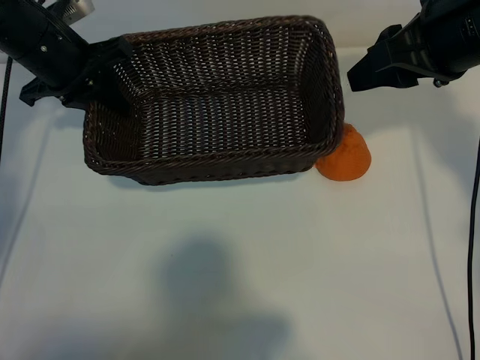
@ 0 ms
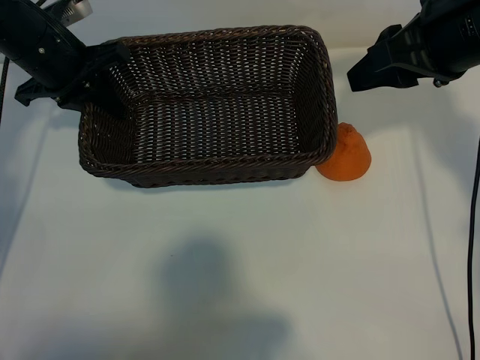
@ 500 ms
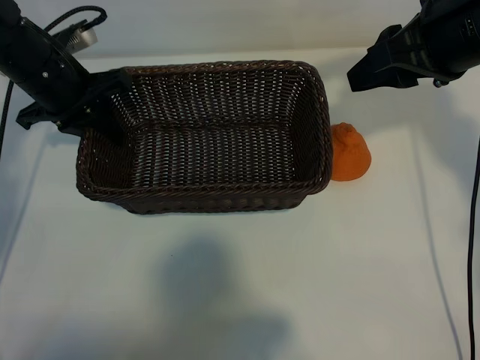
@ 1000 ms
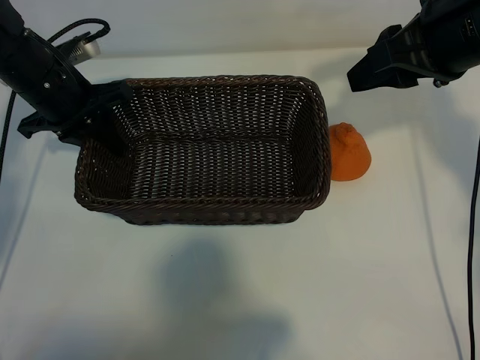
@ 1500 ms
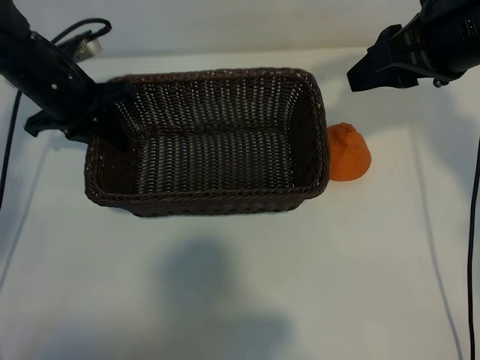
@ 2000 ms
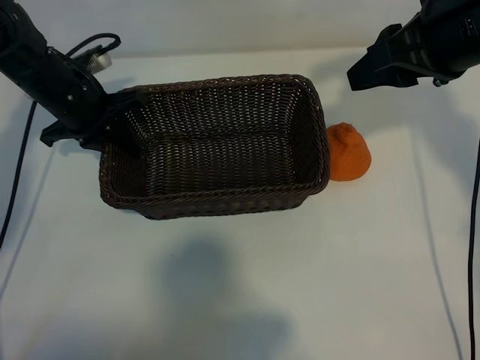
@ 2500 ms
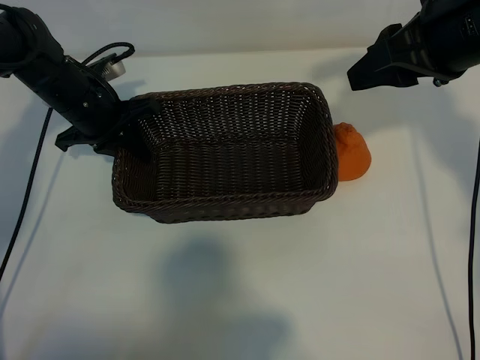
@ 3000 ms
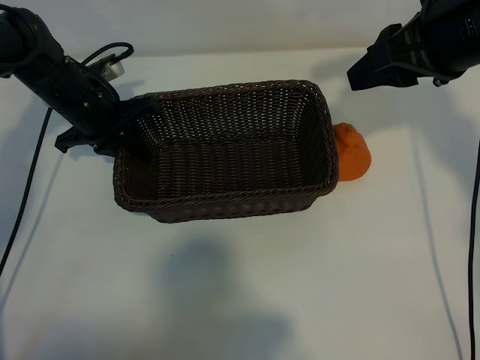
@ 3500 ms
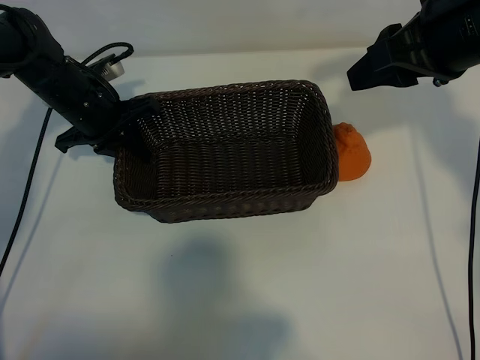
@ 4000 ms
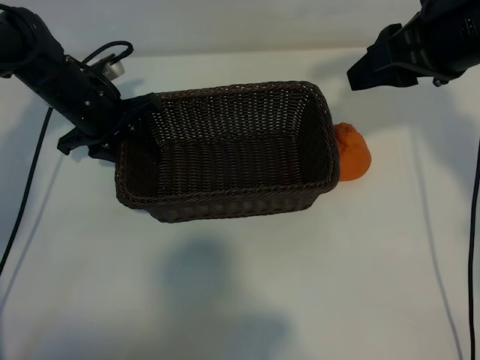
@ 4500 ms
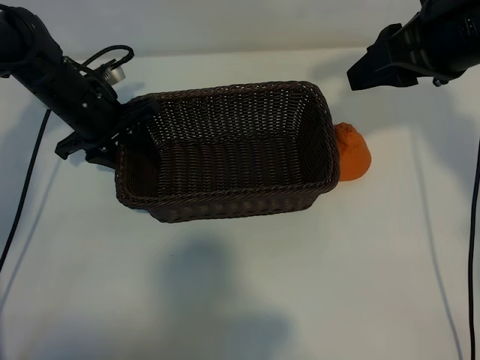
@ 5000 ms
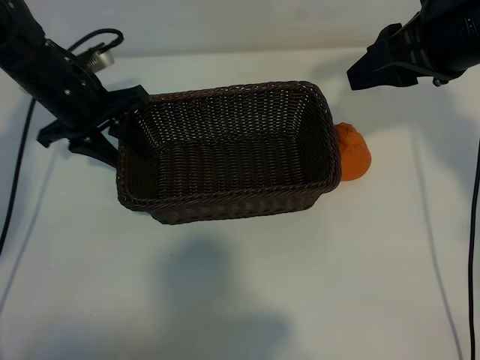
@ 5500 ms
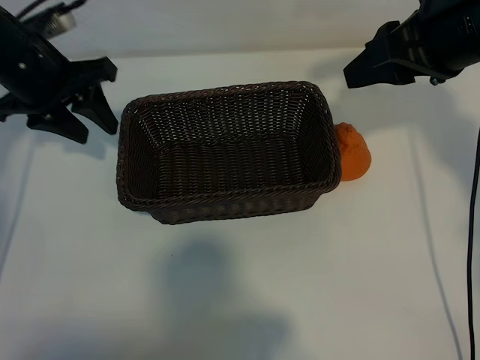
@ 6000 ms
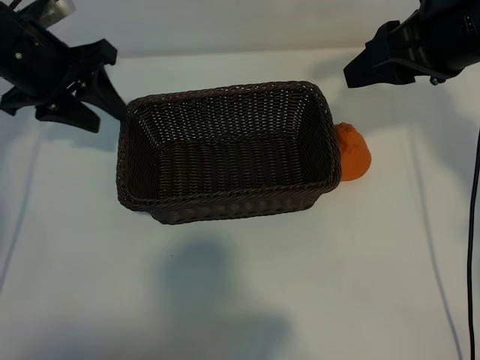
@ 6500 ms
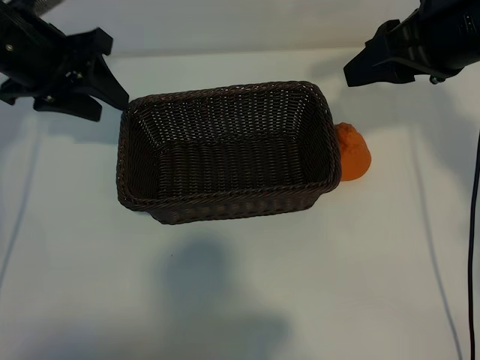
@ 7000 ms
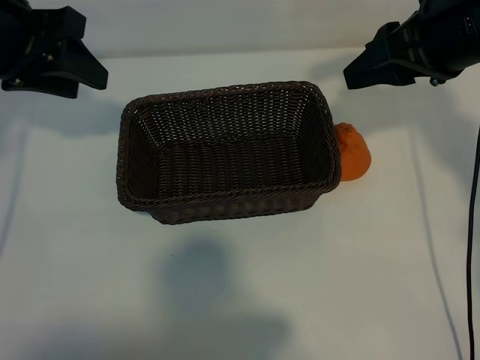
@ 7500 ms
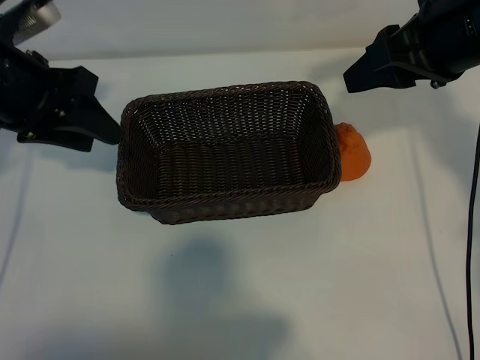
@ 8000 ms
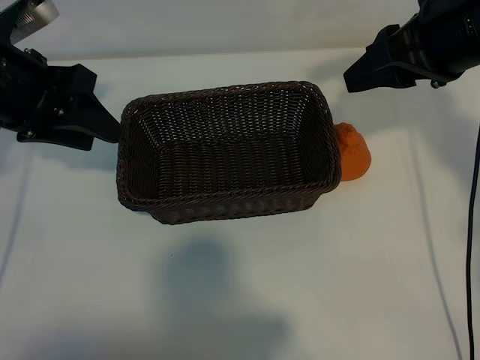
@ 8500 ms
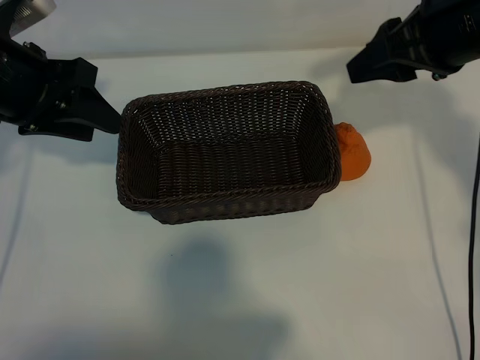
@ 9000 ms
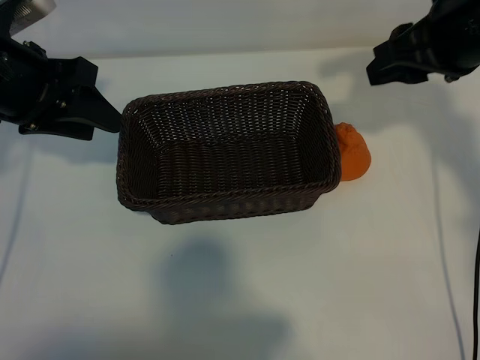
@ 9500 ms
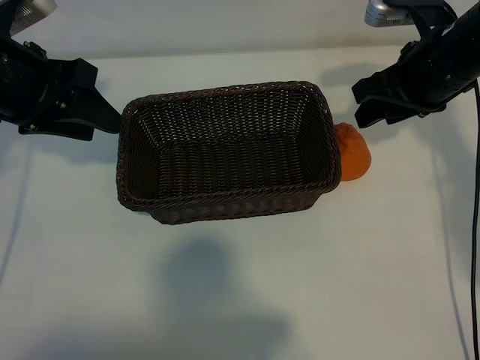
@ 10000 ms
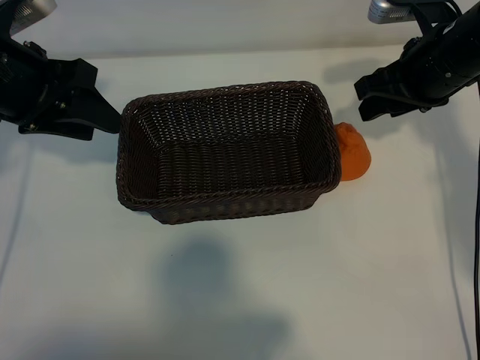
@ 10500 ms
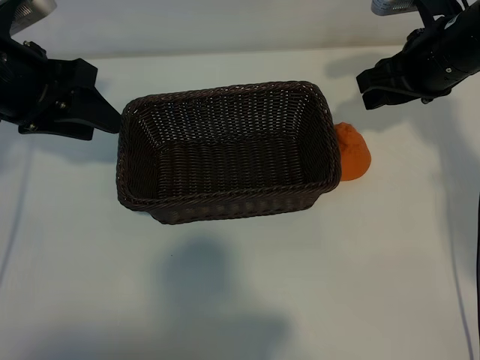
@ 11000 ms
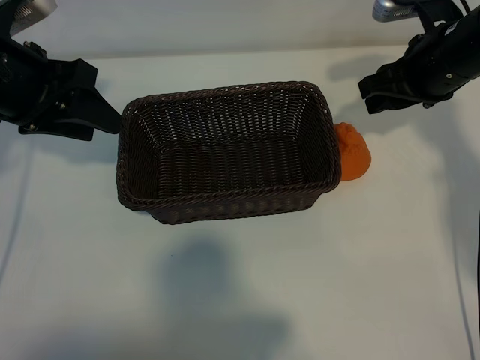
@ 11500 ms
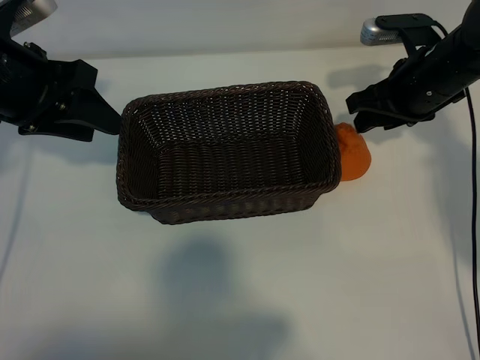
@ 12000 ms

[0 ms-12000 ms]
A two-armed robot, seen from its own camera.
Task of the whole recording: pick up the orange and put it into the basket.
Step, 0 ms to 4000 ms: Place the basket in the center of view with left gripper.

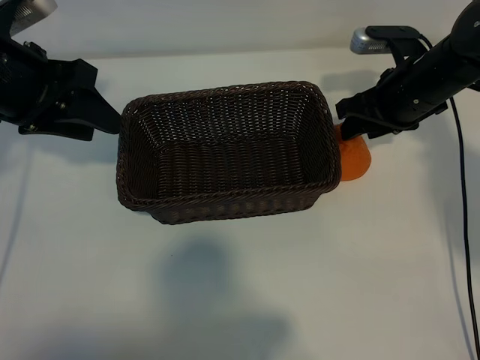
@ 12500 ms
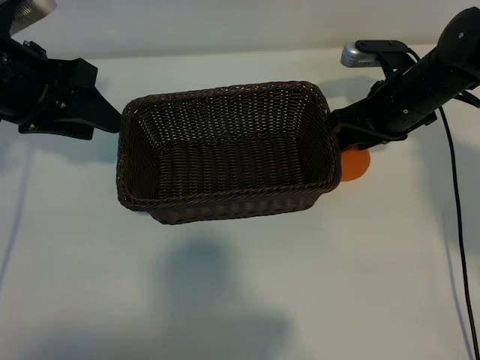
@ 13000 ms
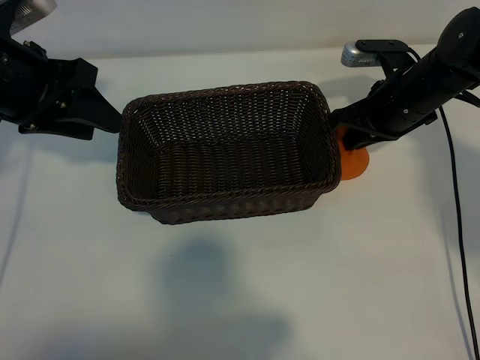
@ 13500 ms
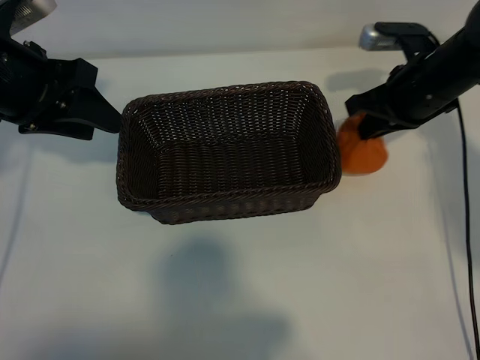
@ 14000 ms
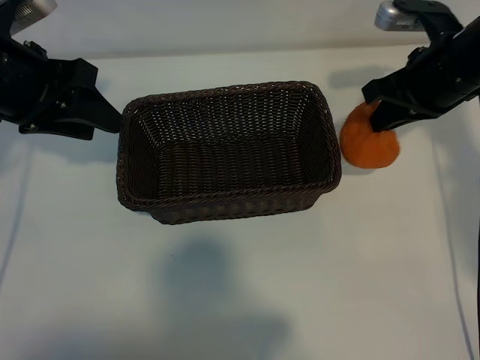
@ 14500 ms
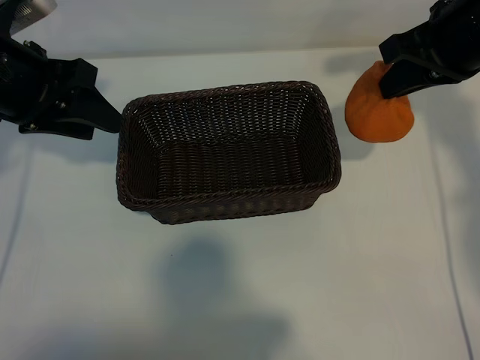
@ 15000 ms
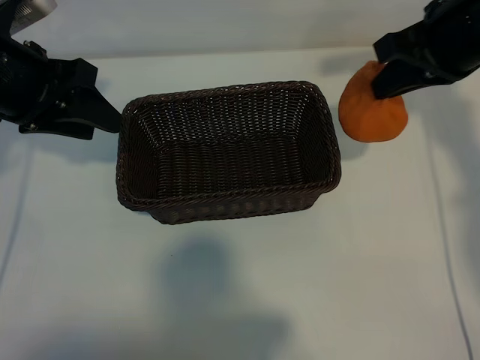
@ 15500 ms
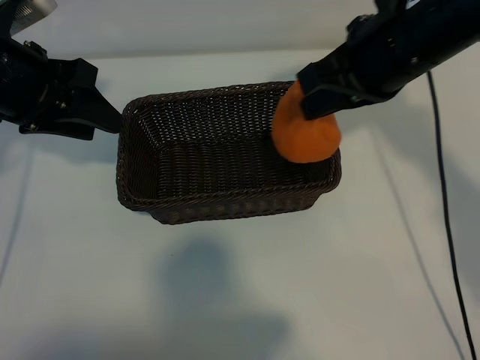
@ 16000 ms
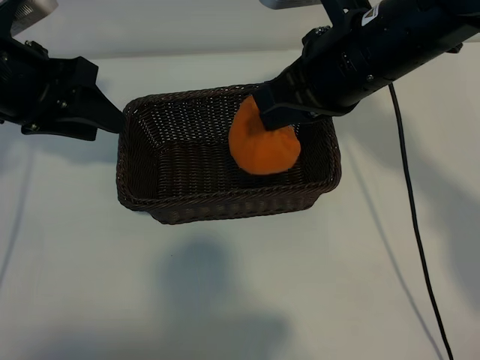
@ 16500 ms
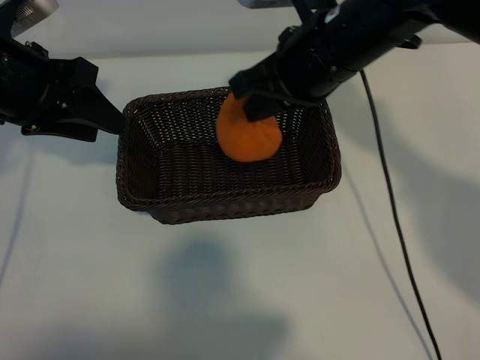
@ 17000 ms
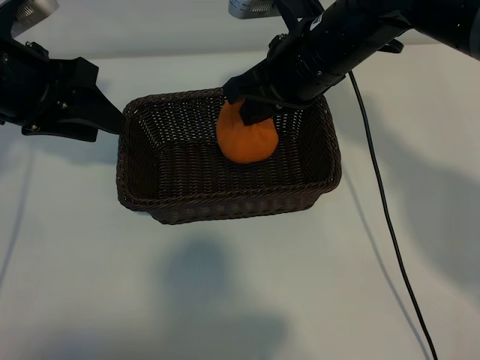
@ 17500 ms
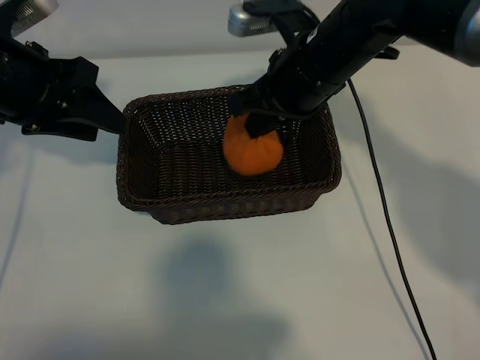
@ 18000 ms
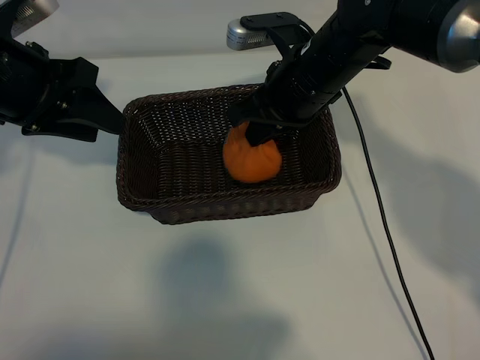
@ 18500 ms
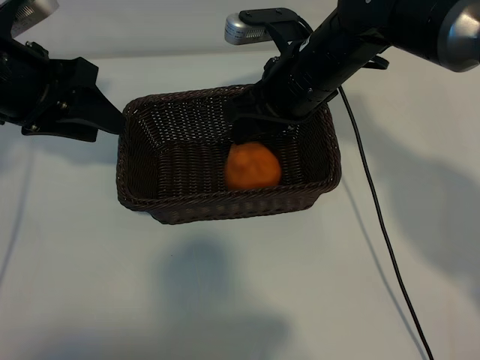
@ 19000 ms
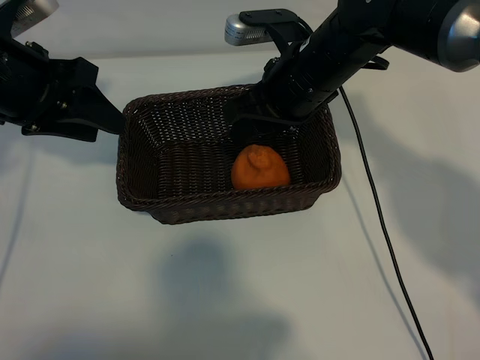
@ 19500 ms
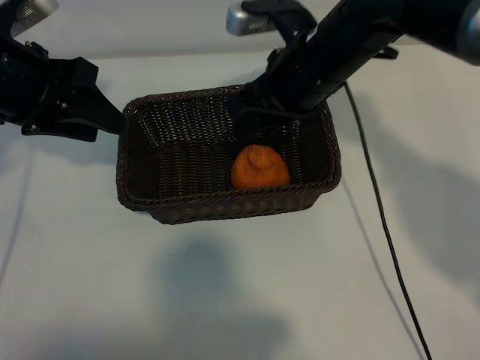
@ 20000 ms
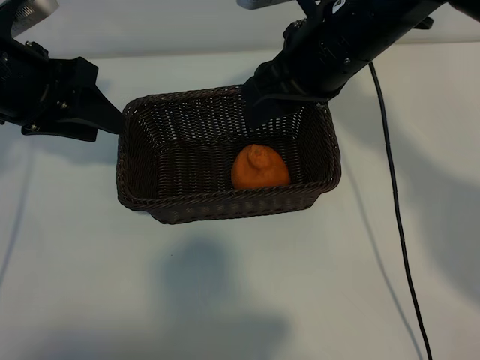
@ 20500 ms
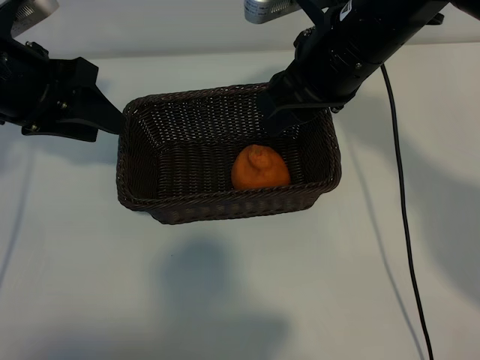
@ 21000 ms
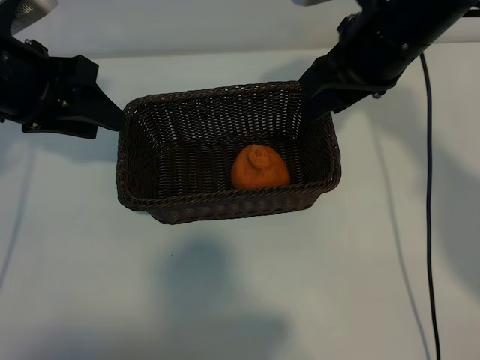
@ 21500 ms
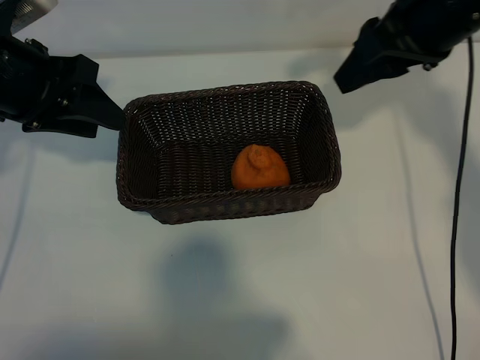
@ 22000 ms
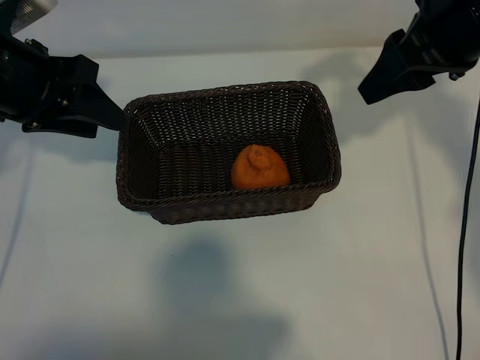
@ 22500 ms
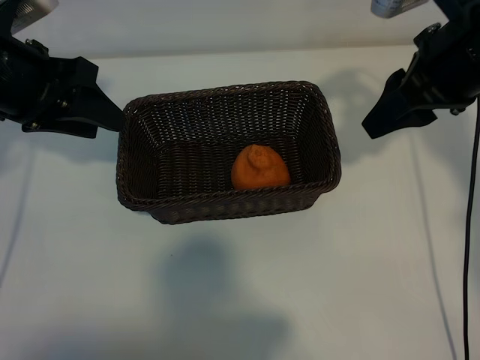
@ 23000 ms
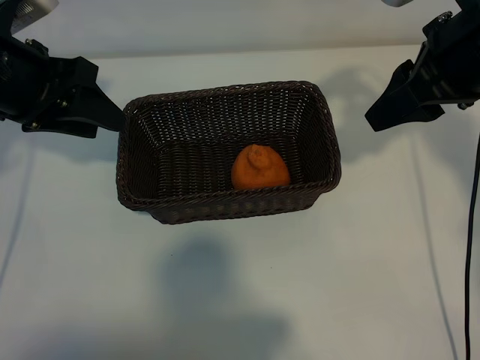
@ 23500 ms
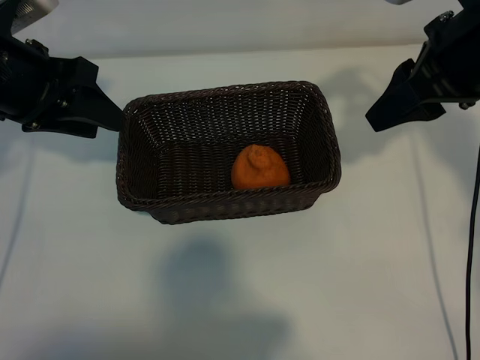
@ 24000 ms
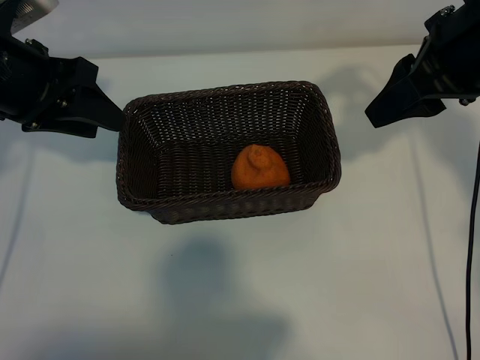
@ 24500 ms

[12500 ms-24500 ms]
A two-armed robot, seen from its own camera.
Task of the whole recording: pick up the orange and put it into the basket.
Step, 13500 ms to 19000 ms: Place the orange in the basket with right gripper.

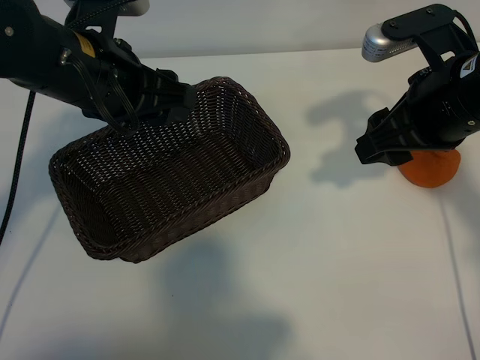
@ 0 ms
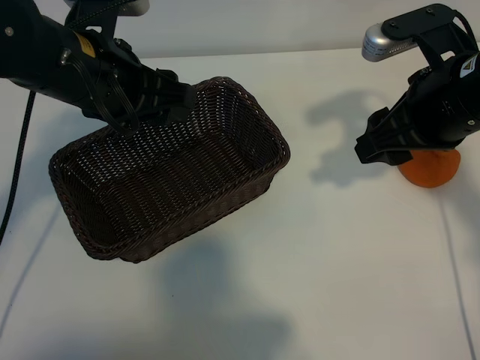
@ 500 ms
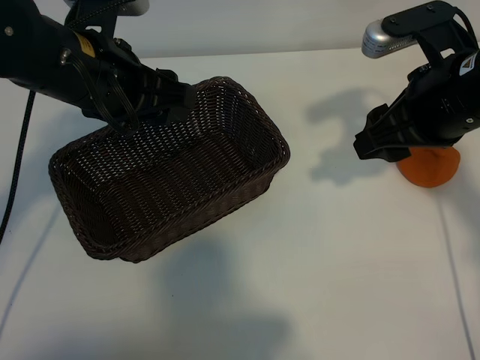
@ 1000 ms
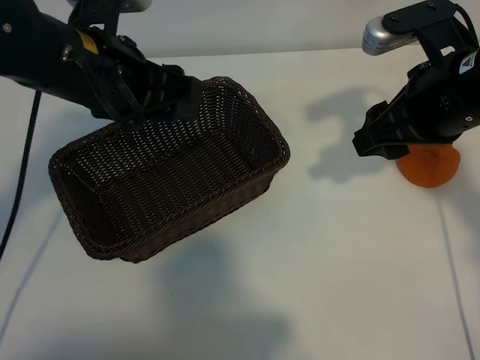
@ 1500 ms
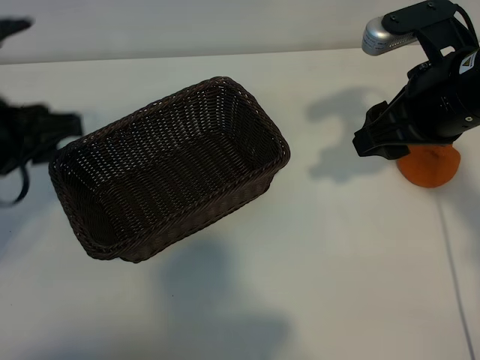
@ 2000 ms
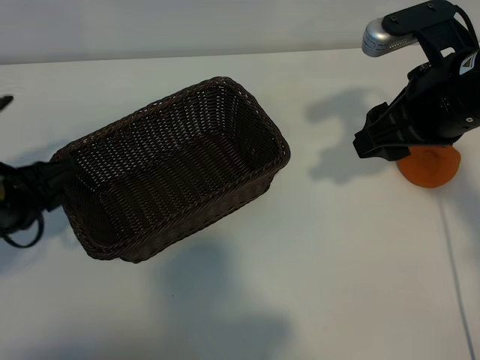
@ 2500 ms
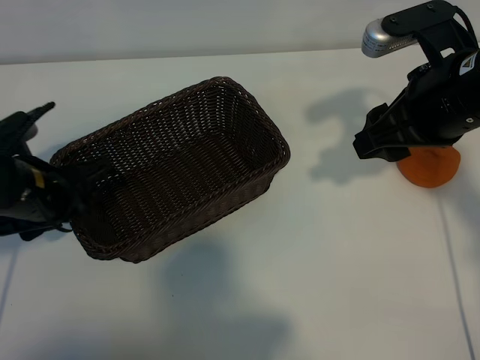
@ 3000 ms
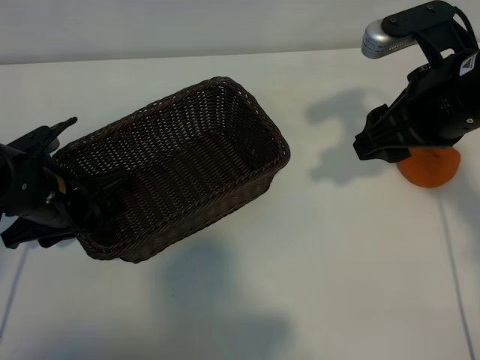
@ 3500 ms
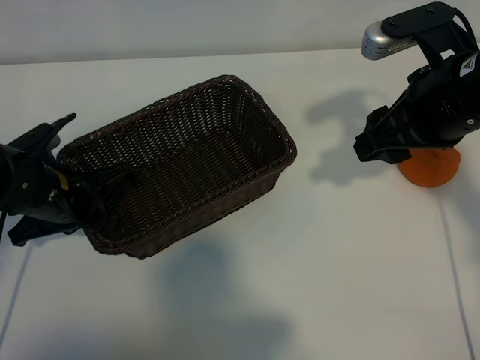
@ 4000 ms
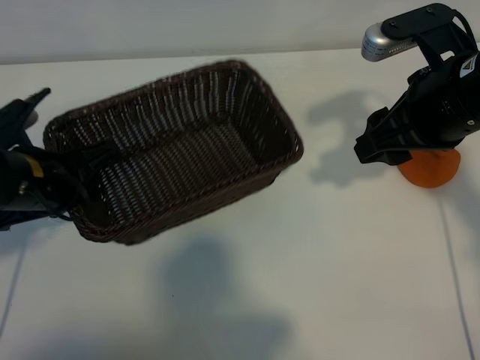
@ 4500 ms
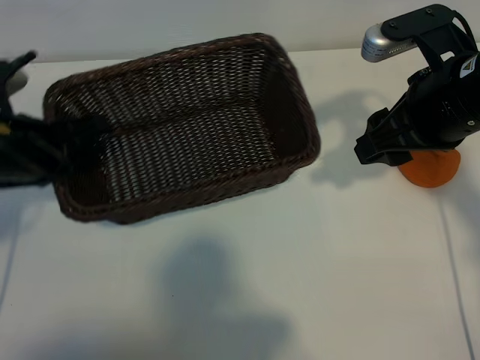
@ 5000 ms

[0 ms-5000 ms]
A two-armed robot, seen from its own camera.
Task of the whole recording: pick up the orange and put it into the basket.
Step, 500 ms to 4000 ms: Grasp the basket with left gripper.
